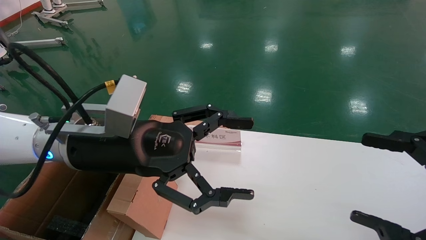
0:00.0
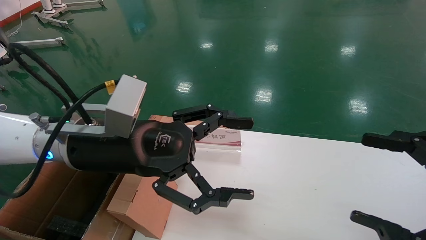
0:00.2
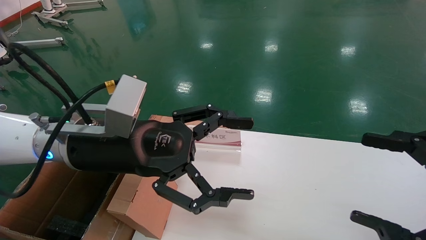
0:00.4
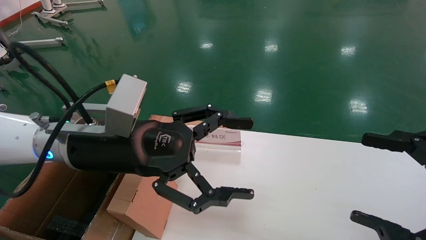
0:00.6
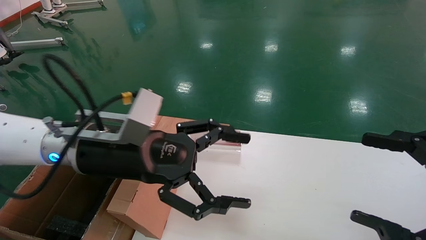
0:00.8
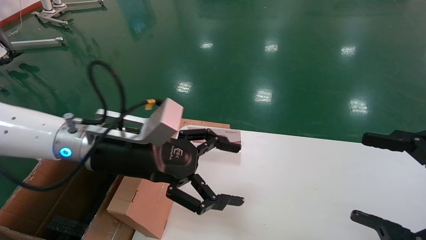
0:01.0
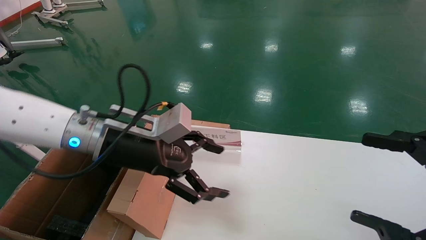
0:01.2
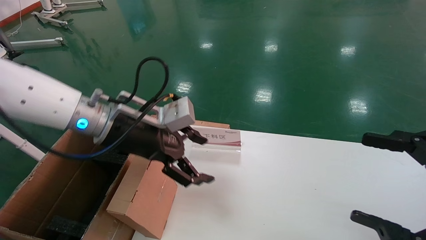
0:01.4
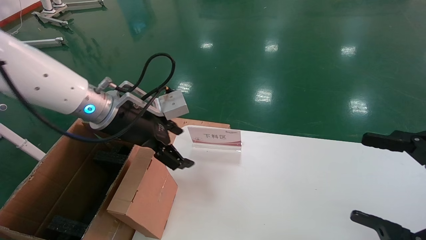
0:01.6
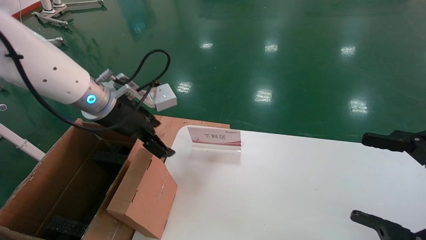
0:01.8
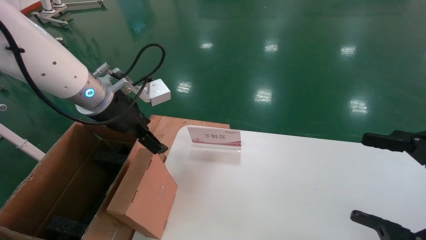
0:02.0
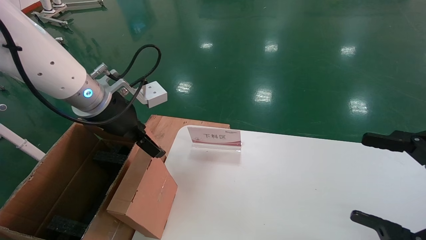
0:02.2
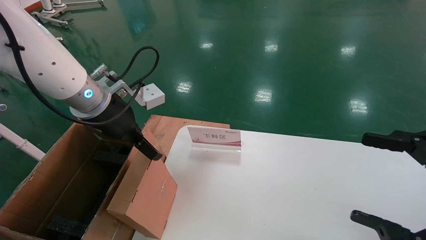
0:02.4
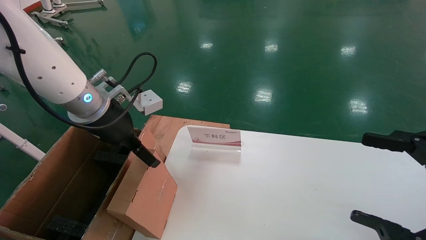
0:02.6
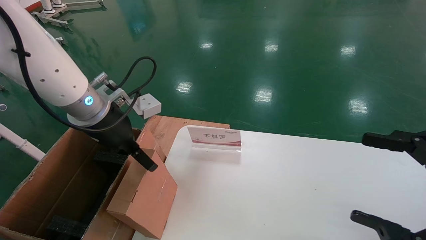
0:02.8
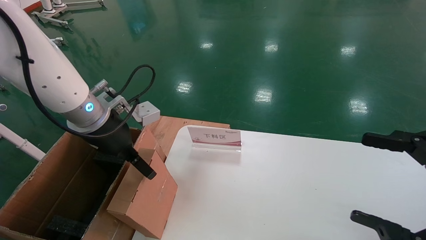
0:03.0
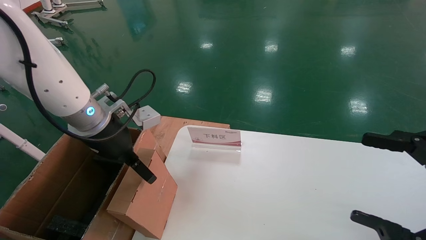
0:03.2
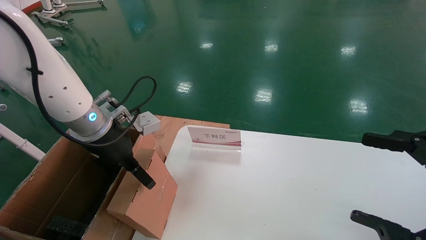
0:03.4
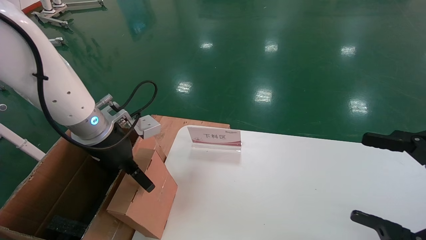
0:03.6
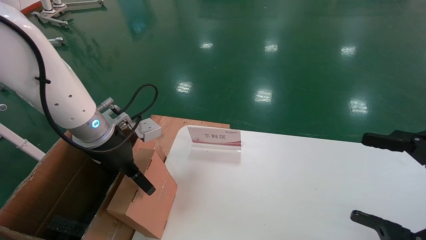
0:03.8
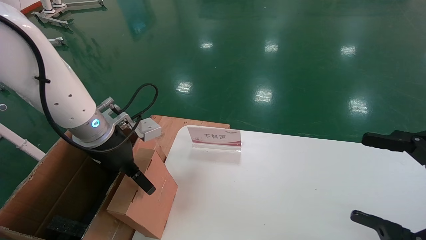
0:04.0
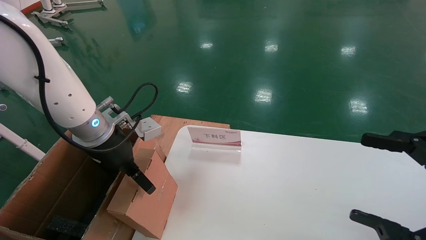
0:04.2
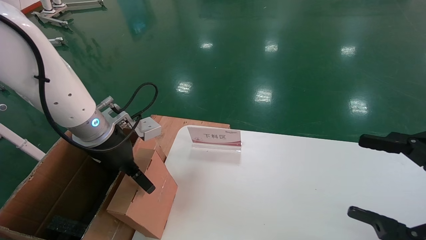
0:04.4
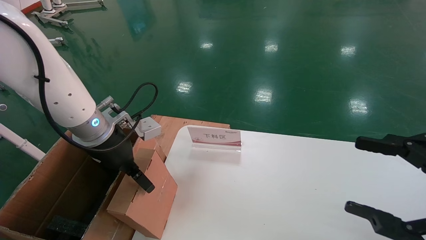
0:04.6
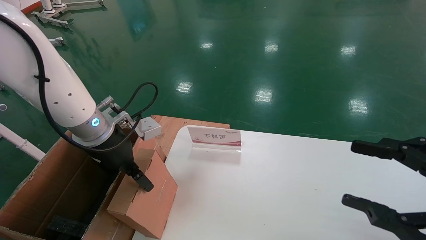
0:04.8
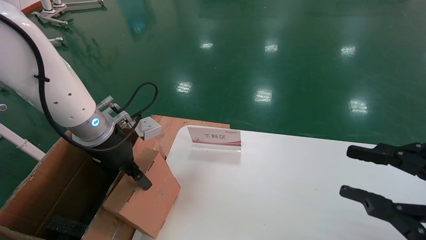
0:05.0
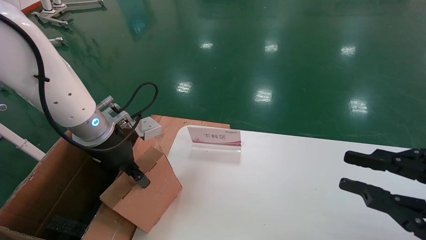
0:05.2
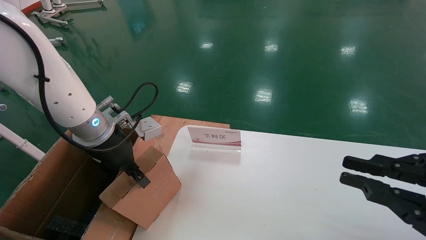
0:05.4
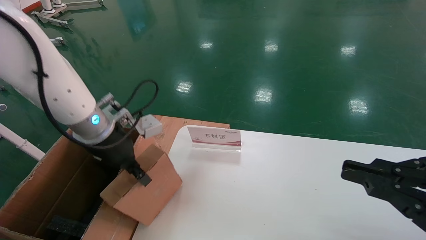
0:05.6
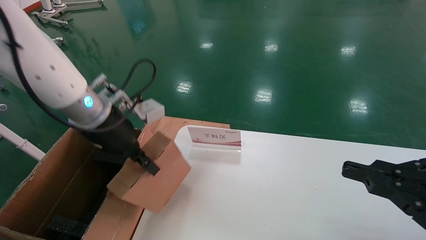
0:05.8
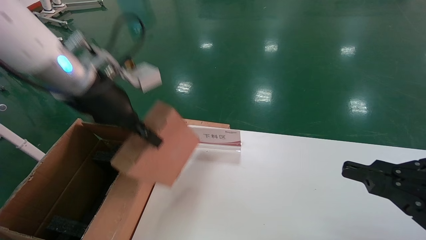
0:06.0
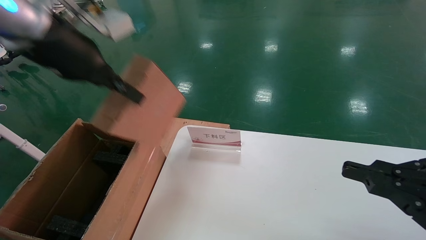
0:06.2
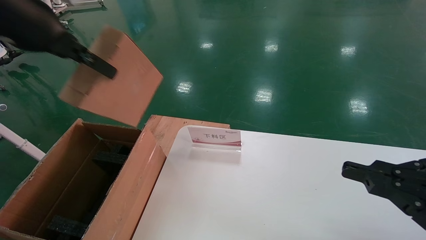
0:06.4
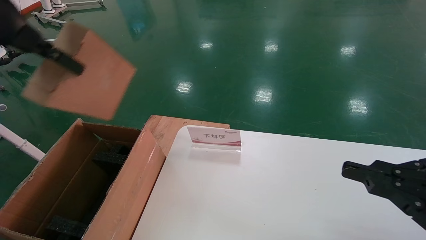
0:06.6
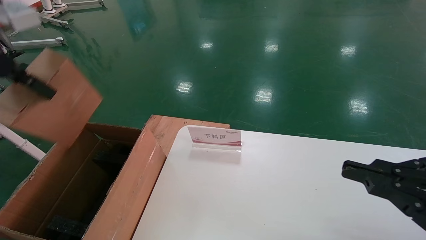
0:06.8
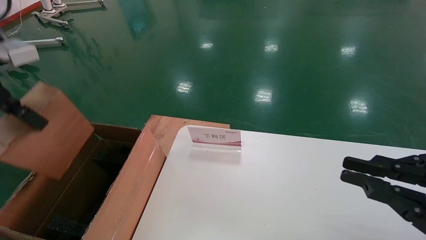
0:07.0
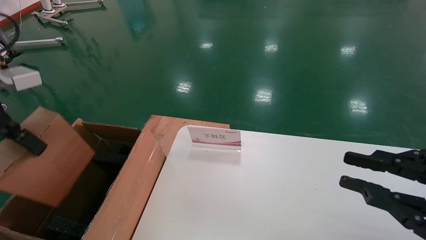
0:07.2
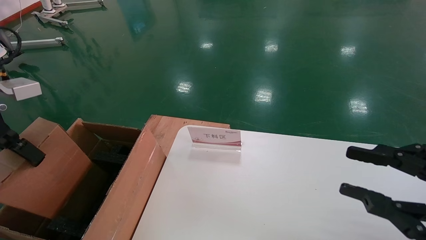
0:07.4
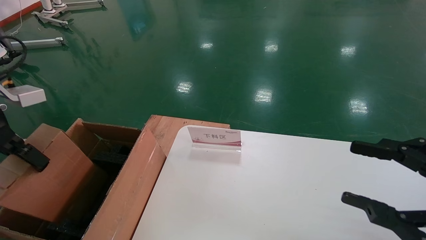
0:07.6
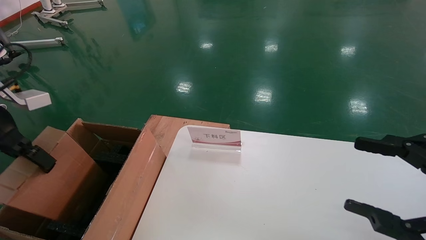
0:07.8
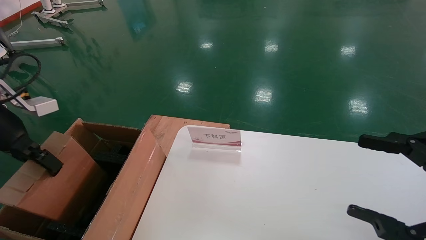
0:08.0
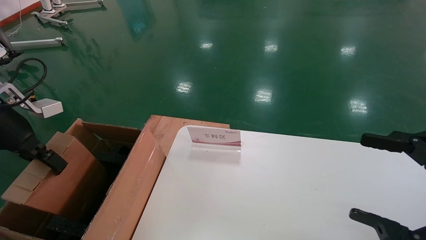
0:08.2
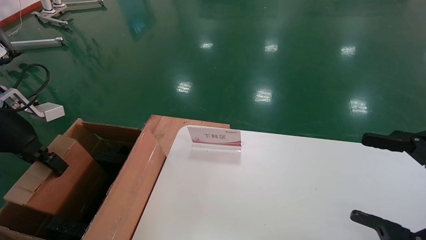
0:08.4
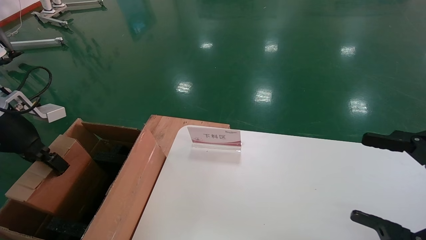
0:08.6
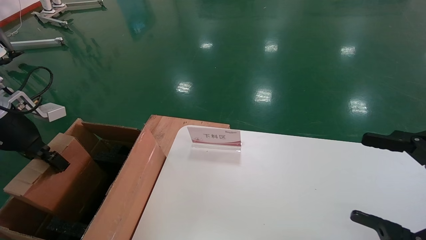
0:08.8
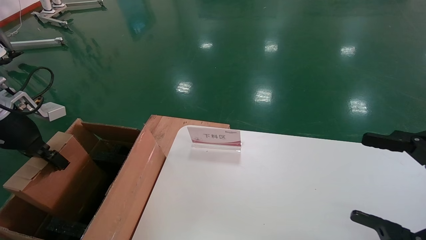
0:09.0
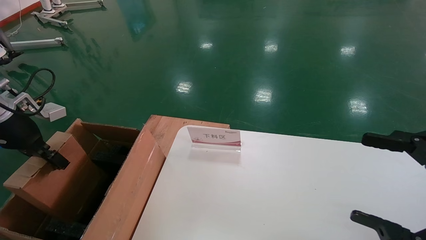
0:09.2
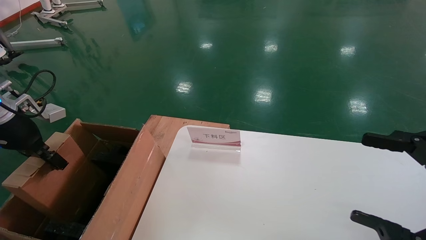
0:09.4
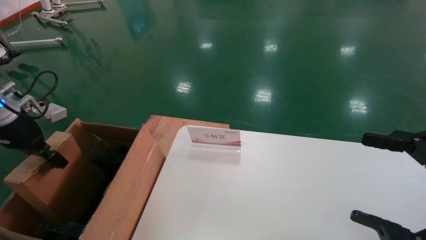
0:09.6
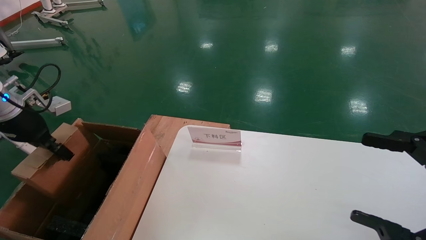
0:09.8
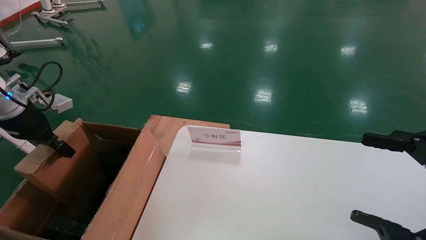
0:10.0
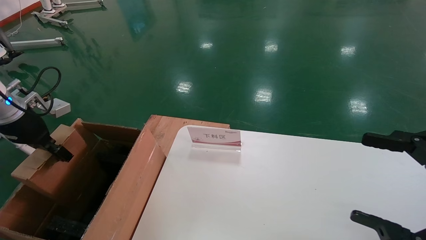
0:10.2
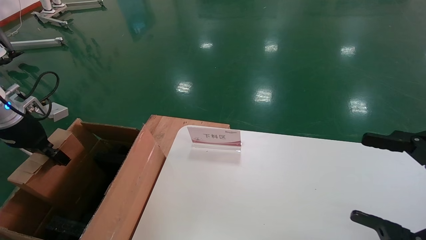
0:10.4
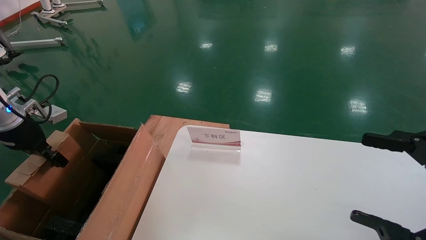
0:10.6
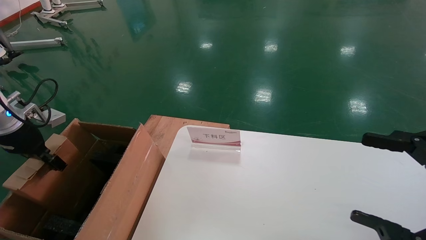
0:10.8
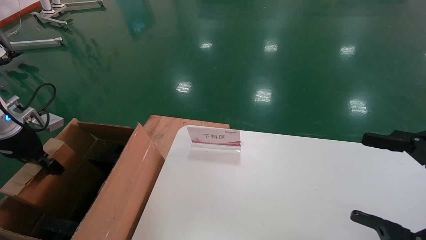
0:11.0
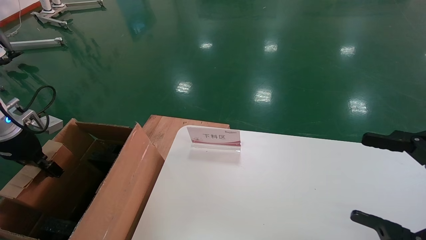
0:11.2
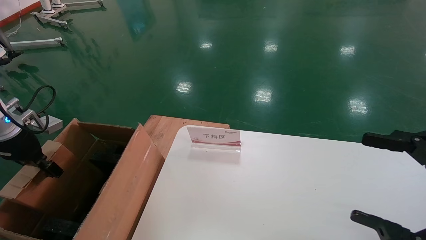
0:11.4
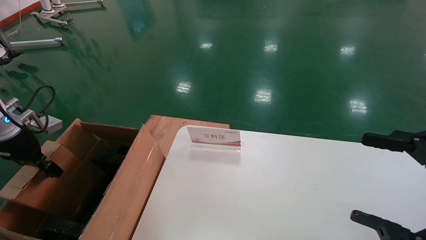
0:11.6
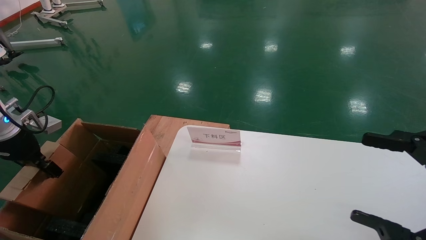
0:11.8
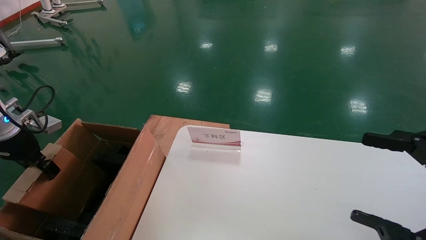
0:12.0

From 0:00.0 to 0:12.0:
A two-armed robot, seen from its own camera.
Task of the whole recording: pick up the small cardboard box and load it into the large cardboard box.
Step, from 0:00.8 to 0:05.8: Pick up the mouse and power cord box.
From 0:00.0 to 0:01.6: The left gripper is displaced forward by about 10 cm.
From 0:03.0 to 0:04.4: The grippers make only small movements.
From 0:04.4 to 0:06.0: The right gripper closes; the left gripper moves upward, roughly 10 cm, and closes.
From 0:06.0 to 0:07.6: The left gripper heads to the left and backward, covering about 20 cm; the right gripper opens its fingers.
From 0:07.6 to 0:09.0: The left gripper is displaced downward, forward and to the left by some 10 cm. Meanwhile the right gripper opens.
From 0:09.0 to 0:10.4: The grippers stay close to where they were, moving slightly.
From 0:10.4 to 0:12.0: The grippers move only a little.

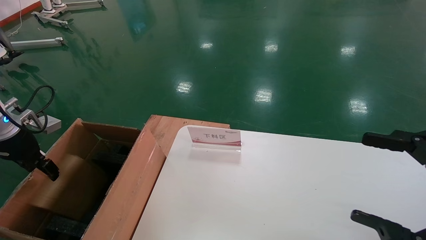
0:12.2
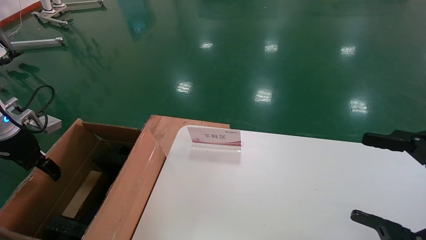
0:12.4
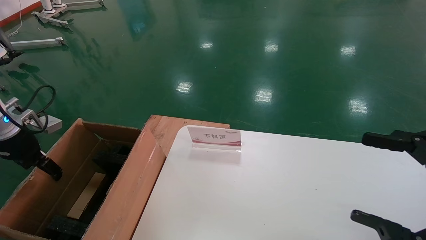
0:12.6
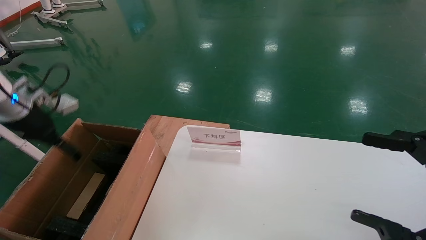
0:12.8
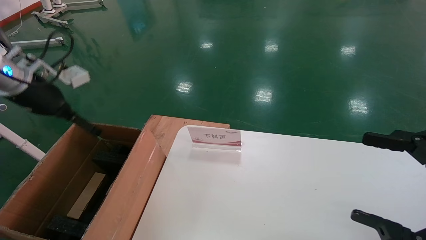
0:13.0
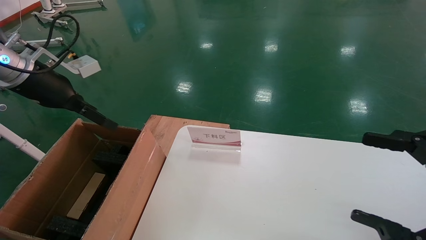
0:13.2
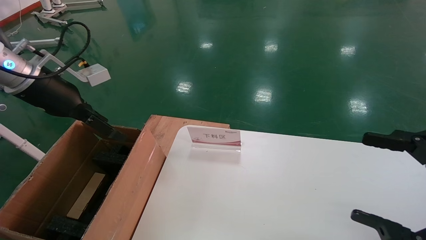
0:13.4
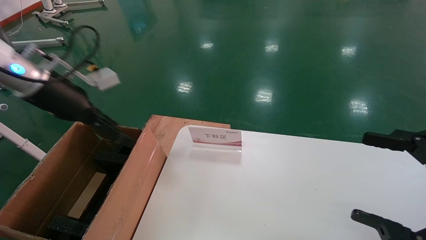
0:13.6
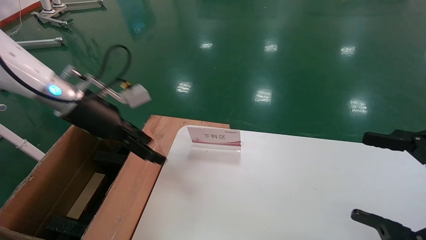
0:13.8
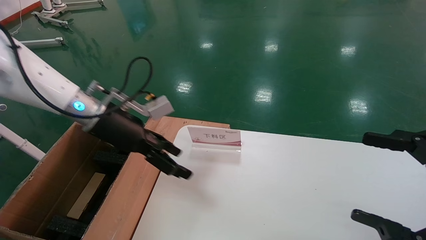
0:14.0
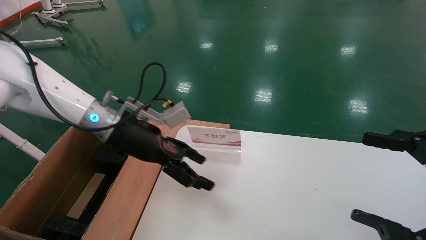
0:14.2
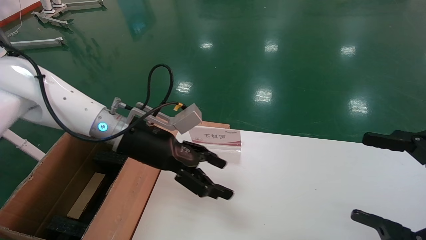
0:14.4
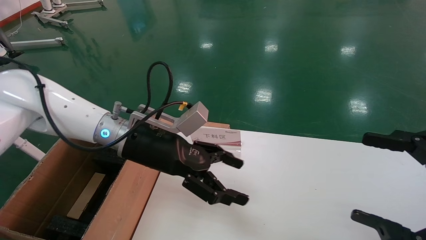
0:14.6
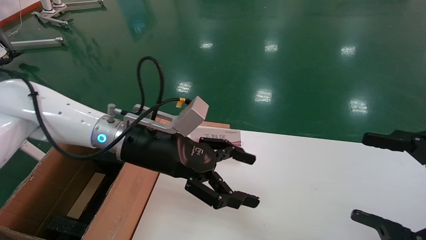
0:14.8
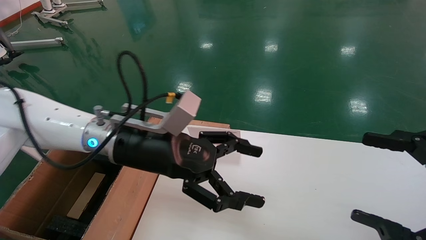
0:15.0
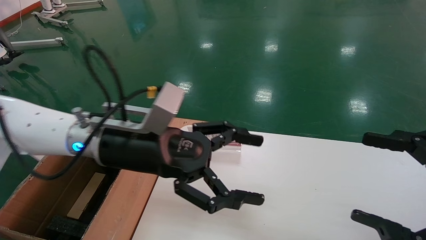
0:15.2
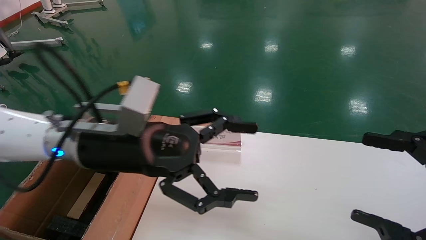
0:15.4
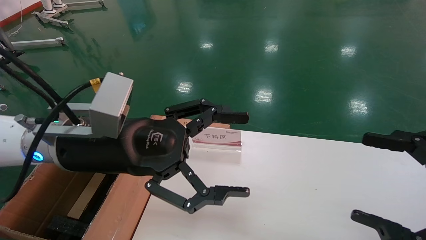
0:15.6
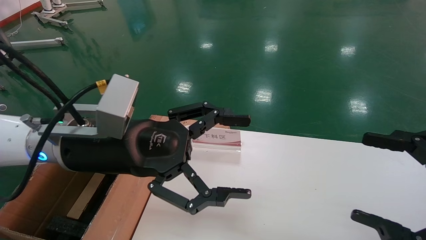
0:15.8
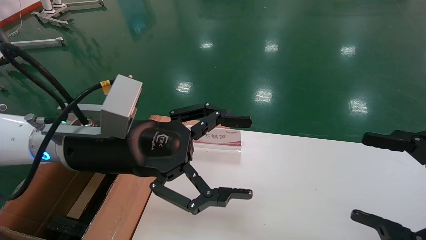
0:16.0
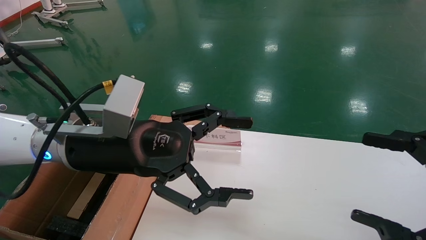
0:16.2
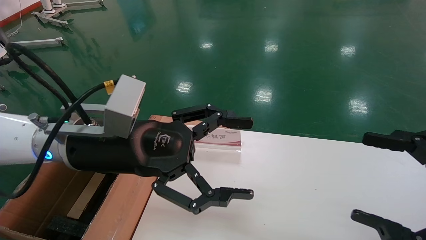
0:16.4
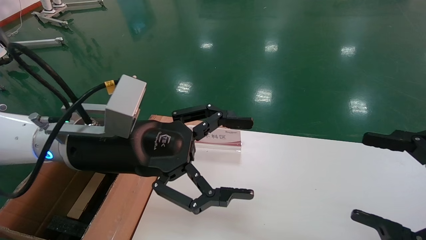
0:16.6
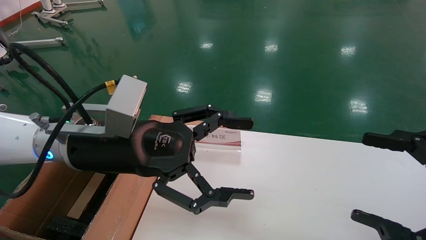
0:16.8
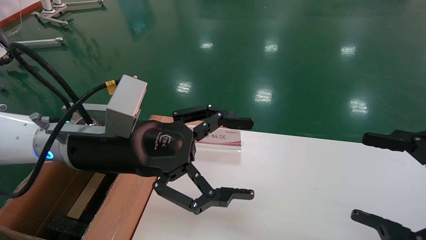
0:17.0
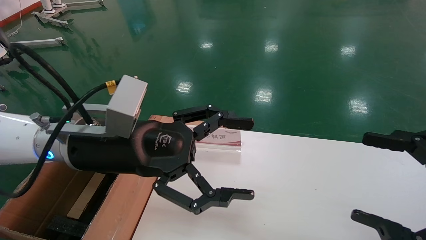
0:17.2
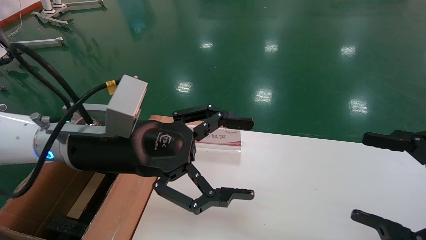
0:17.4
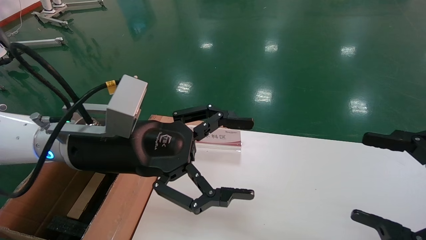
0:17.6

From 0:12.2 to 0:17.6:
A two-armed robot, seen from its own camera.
Task of the whole recording: pick up the small cardboard box and load it into the large cardboard box.
From 0:12.2 to 0:13.6: The left gripper moves to the right and upward, approximately 15 cm, and opens its fingers.
From 0:13.6 to 0:15.0: The left gripper is displaced to the right by approximately 20 cm.
From 0:15.0 to 0:16.2: The left gripper heads backward, covering some 5 cm.
From 0:16.2 to 0:17.6: Both grippers stay about where they are.
